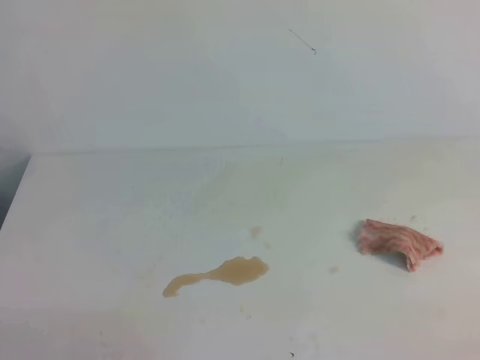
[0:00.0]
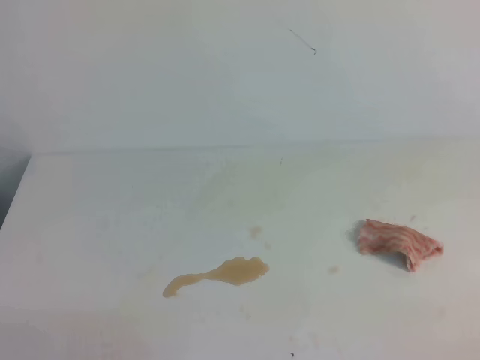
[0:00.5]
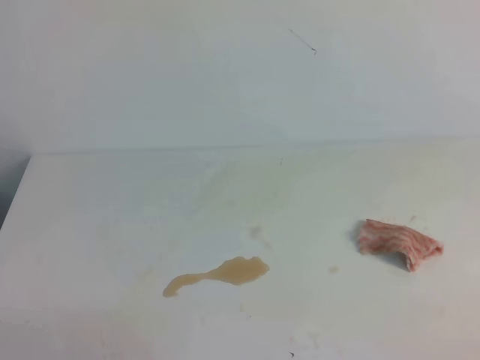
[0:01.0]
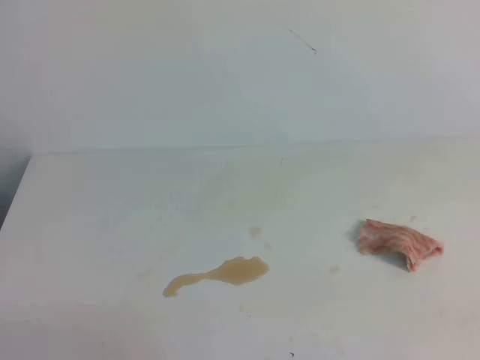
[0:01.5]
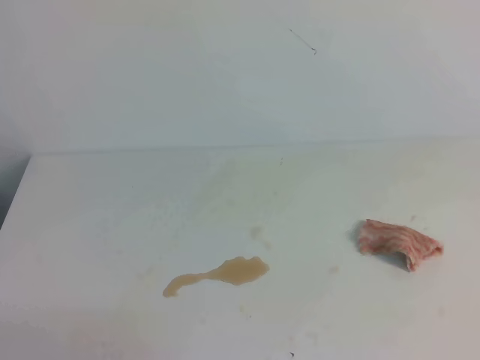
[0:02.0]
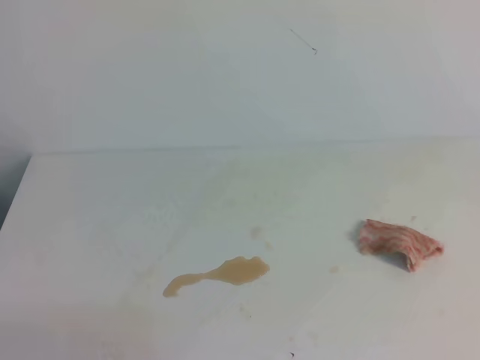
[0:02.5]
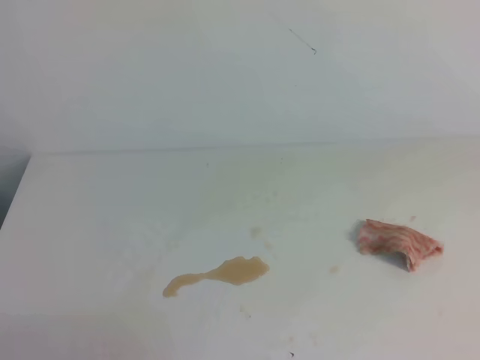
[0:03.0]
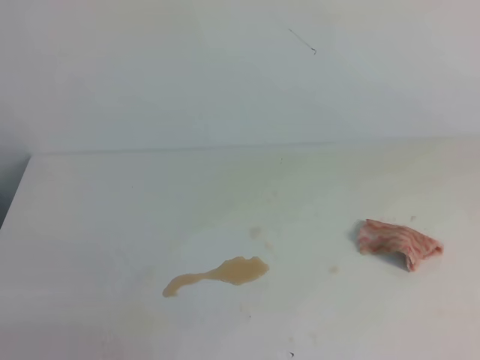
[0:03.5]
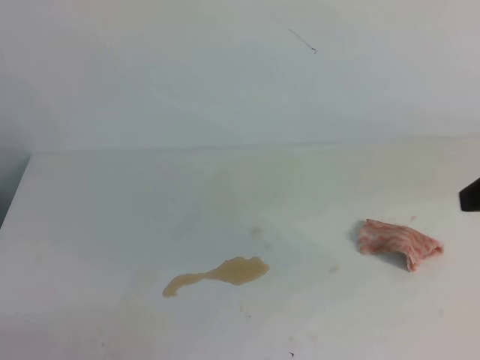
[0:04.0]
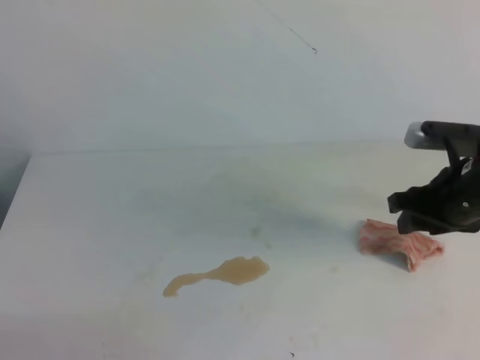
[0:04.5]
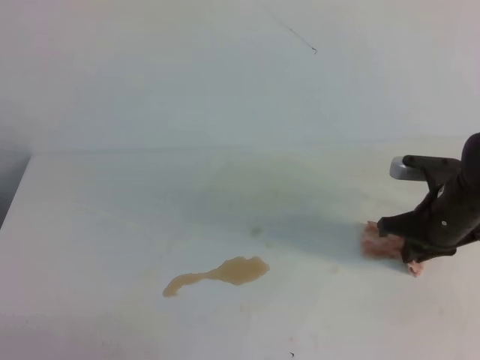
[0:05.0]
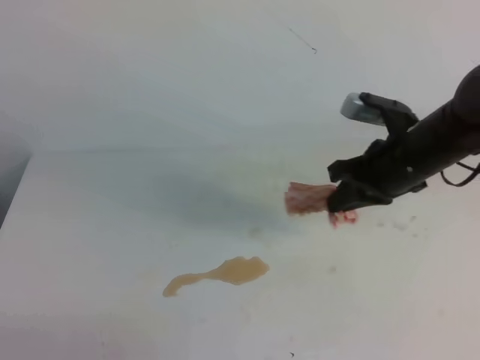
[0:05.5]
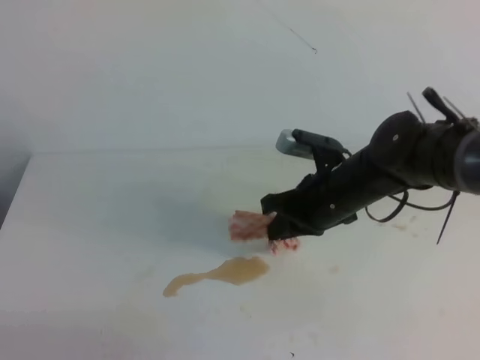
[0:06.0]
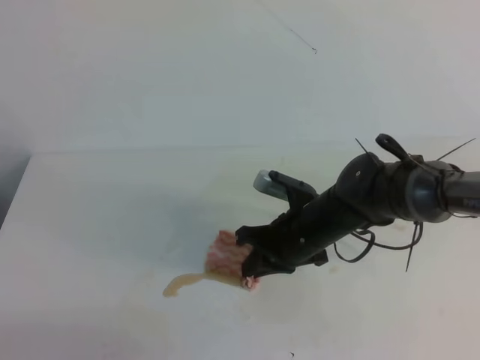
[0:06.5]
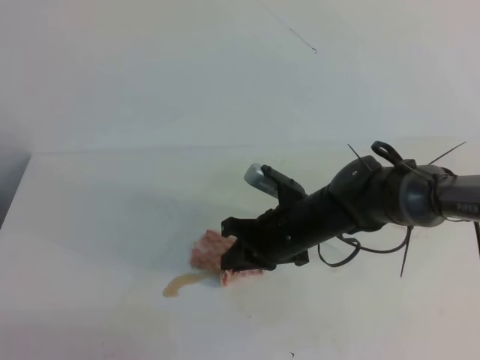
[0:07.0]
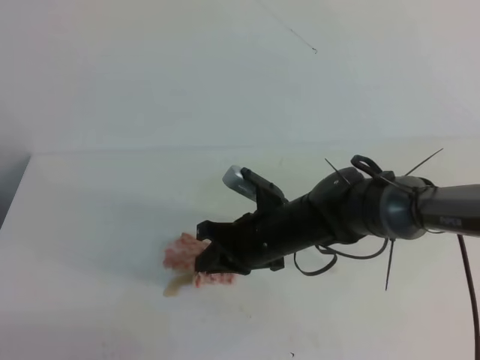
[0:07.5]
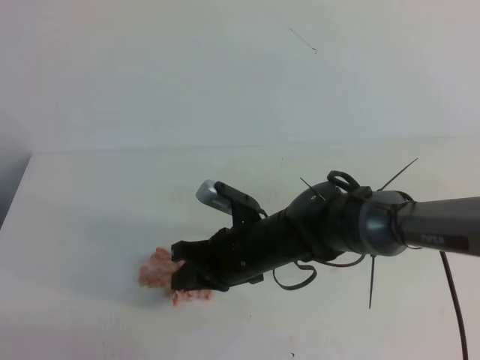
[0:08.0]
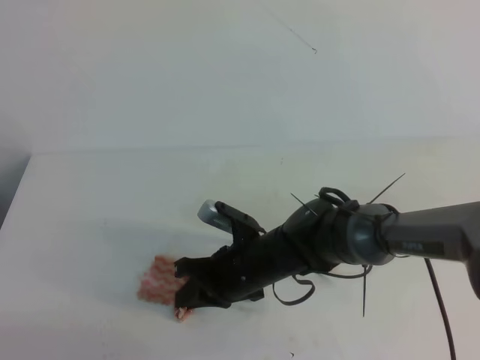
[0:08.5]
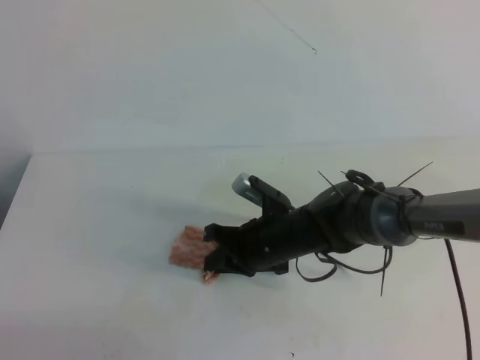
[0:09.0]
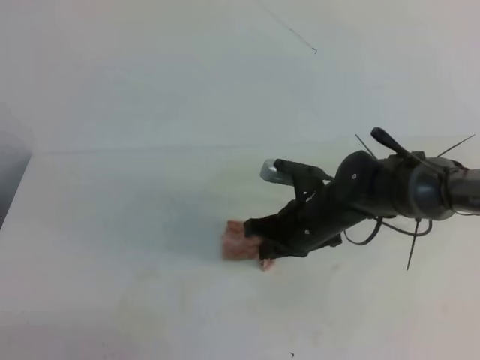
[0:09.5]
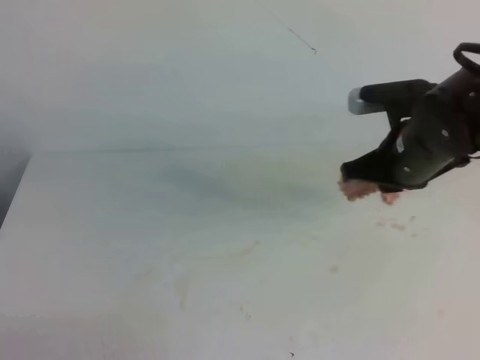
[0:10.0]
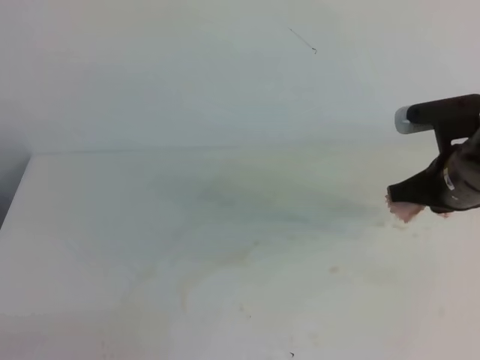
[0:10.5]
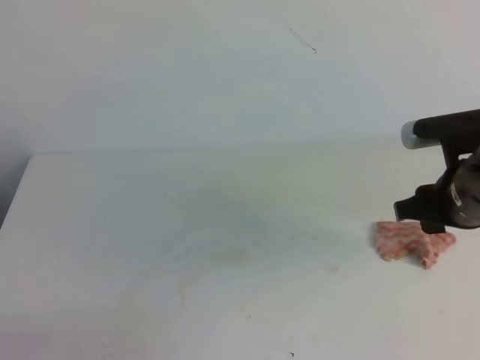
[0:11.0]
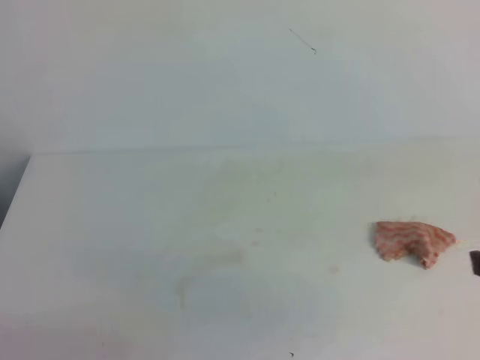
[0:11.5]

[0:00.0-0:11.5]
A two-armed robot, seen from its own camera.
0:04.0 to 0:06.0: The right gripper goes roughly 25 cm to the left, downward and forward, and closes its fingers.
0:06.0 to 0:07.5: The right gripper shifts approximately 10 cm to the left.
0:07.5 to 0:09.5: The right gripper goes approximately 5 cm to the right.
0:09.5 to 0:11.5: The right gripper goes roughly 30 cm backward, to the right and upward, and opens and closes again.

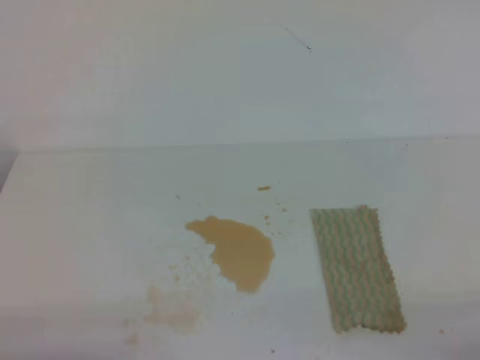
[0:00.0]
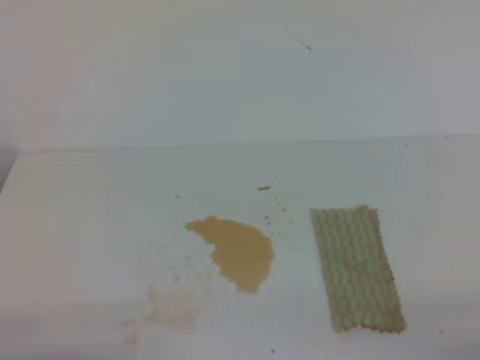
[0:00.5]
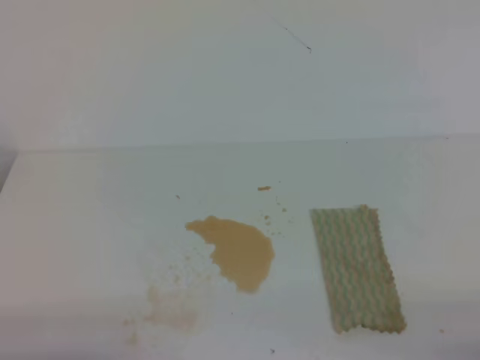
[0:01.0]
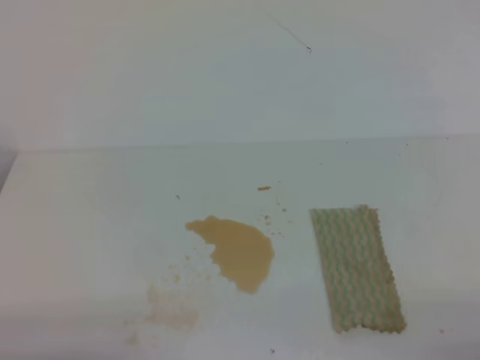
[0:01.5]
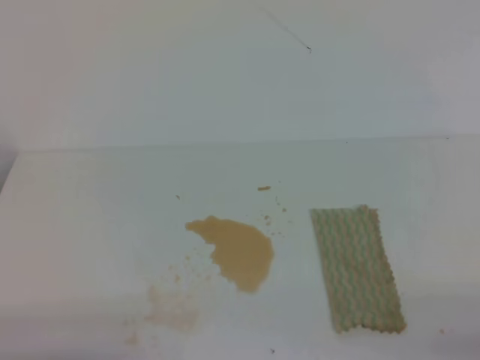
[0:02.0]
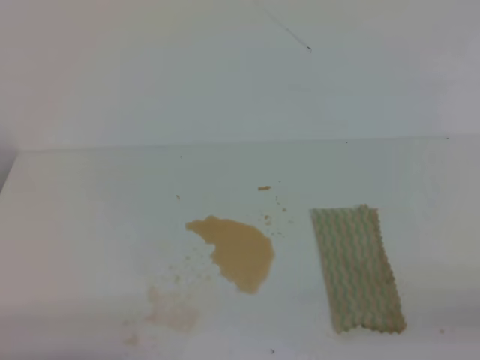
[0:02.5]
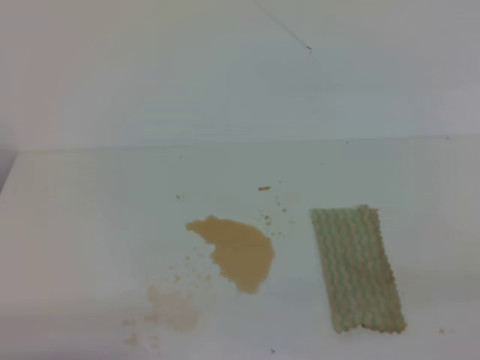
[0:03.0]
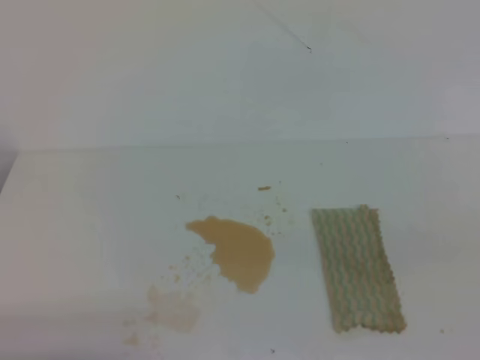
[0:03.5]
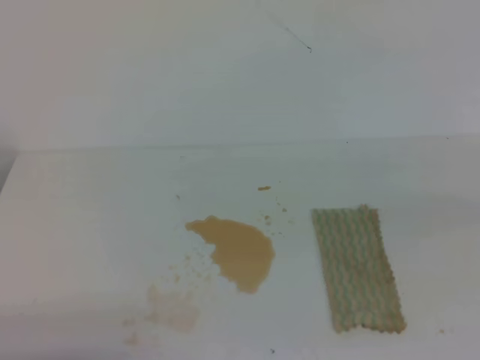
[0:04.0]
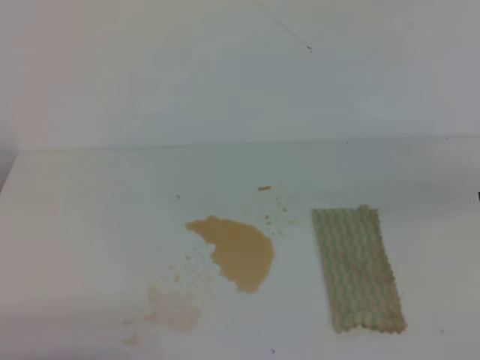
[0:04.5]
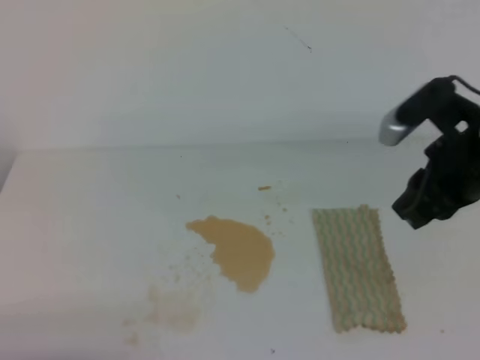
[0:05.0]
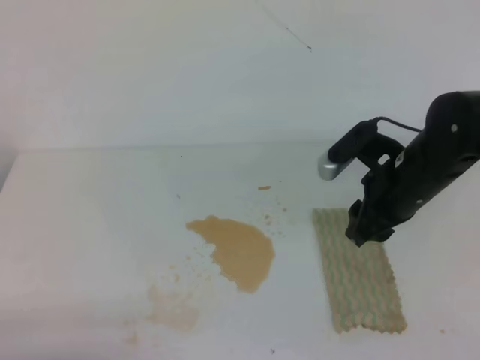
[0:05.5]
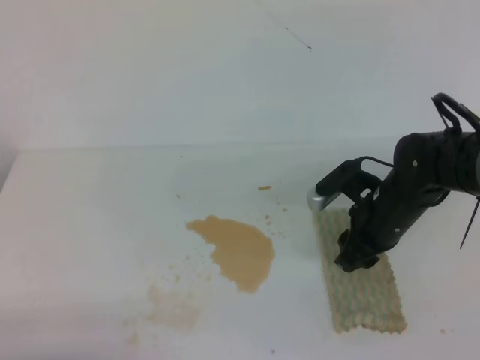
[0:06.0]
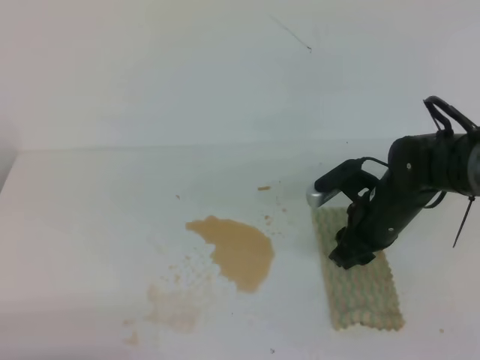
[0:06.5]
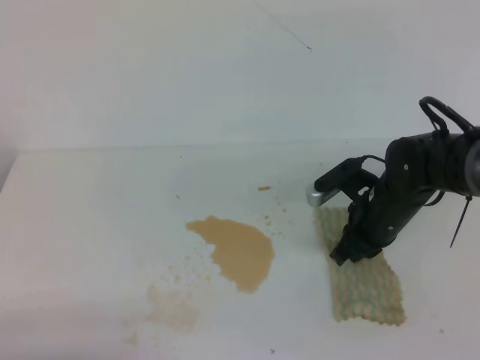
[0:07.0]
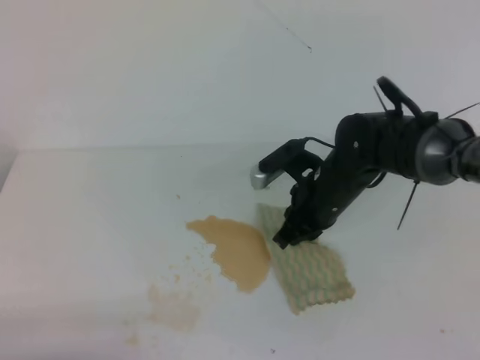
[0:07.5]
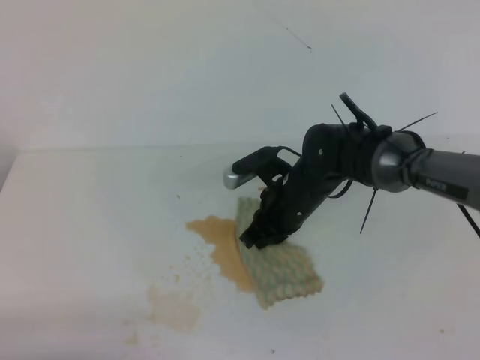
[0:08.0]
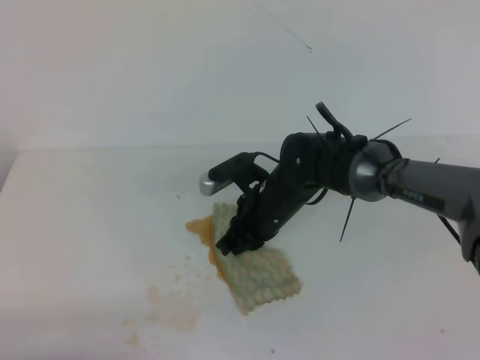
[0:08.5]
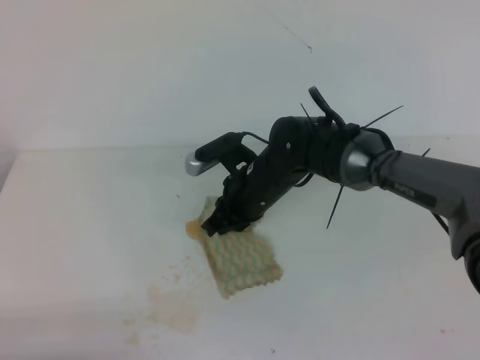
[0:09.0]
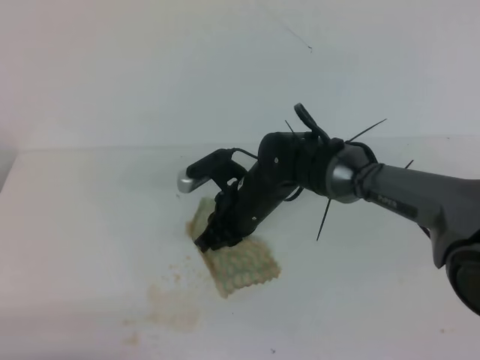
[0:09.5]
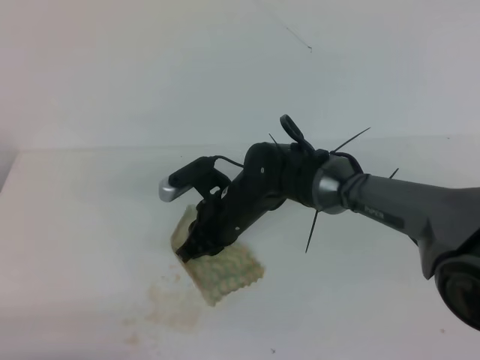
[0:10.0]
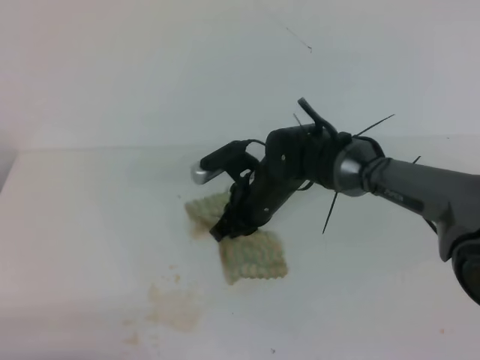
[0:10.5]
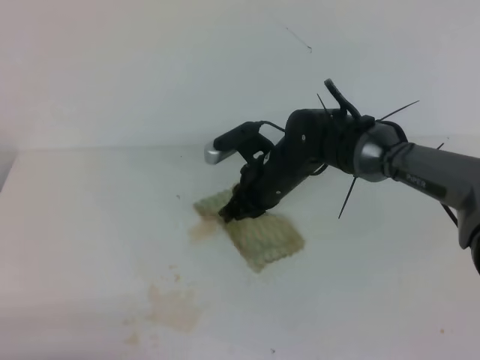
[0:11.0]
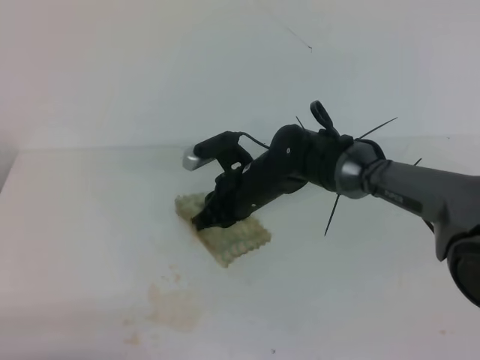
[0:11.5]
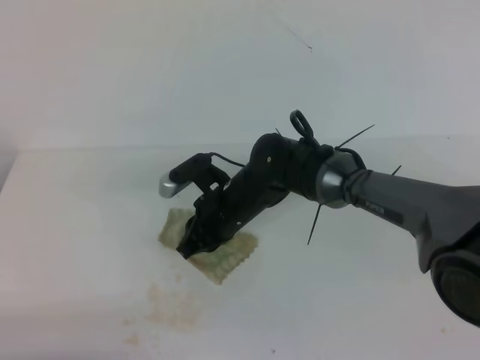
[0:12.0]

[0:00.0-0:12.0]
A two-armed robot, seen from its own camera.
0:00.0 to 0:02.0: Neither gripper changes place.
0:04.0 to 0:06.0: The right gripper moves forward, downward and to the left, approximately 35 cm, and opens.
0:06.0 to 0:08.0: The right gripper heads to the left, covering some 10 cm, and closes its fingers.
0:08.0 to 0:10.0: The right gripper travels to the left by approximately 10 cm.

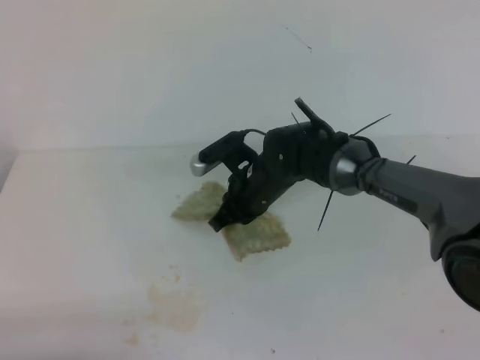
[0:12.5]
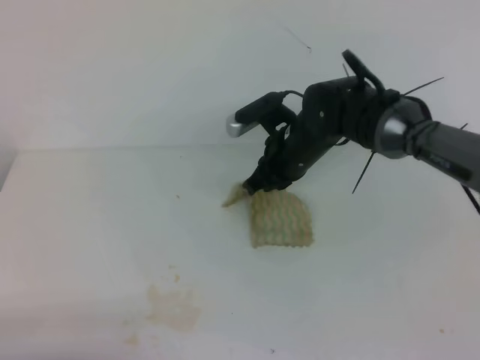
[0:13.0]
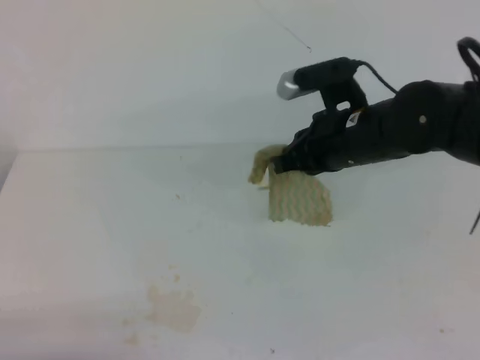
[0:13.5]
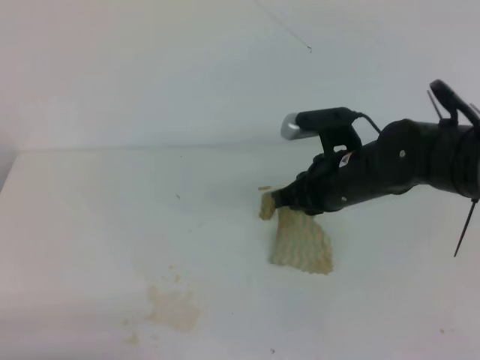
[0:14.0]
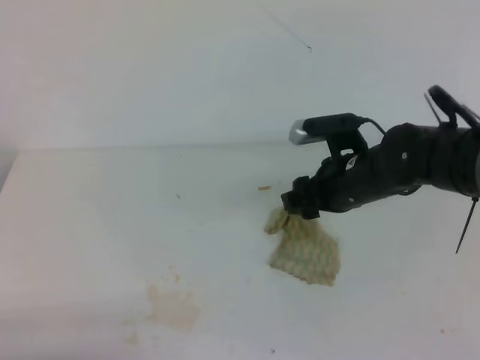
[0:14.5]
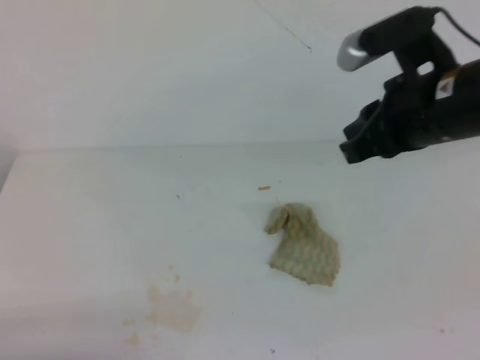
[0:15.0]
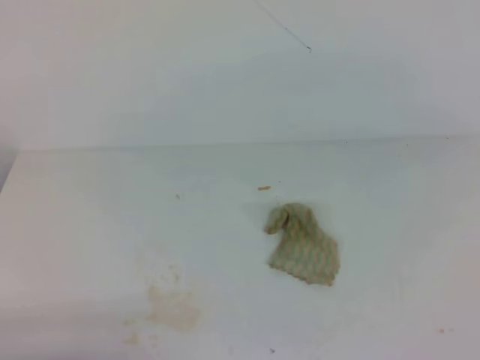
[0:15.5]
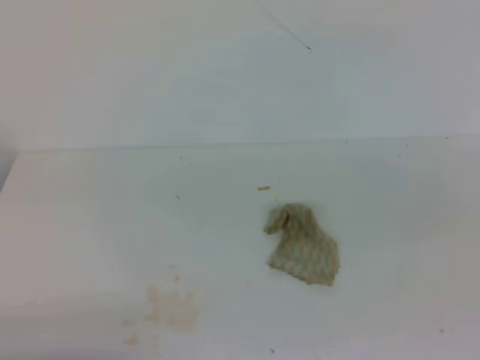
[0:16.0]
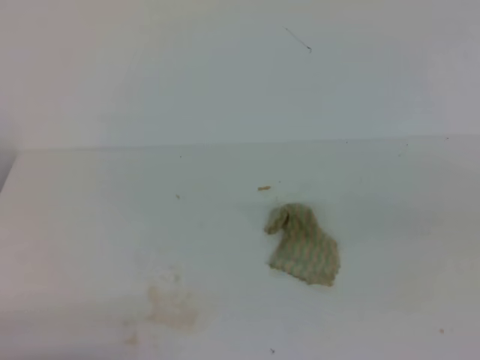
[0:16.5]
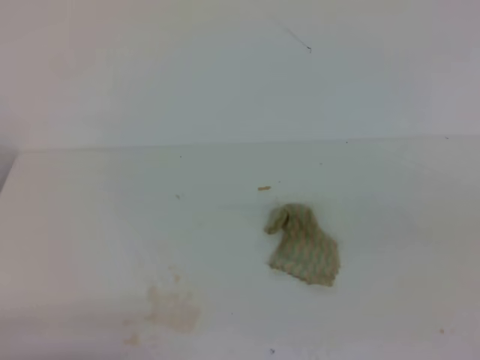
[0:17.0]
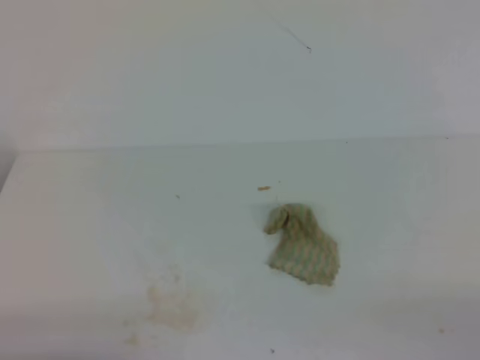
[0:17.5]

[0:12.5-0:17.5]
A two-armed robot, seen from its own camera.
0:12.5 to 0:15.0: The right gripper swings up and down, some 20 cm each way, with 2 reversals, and opens up.
0:15.0 to 0:17.5: The right gripper is displaced backward, to the right and downward by roughly 35 cm, and closes.
